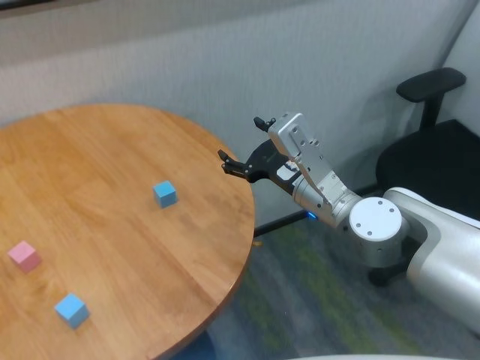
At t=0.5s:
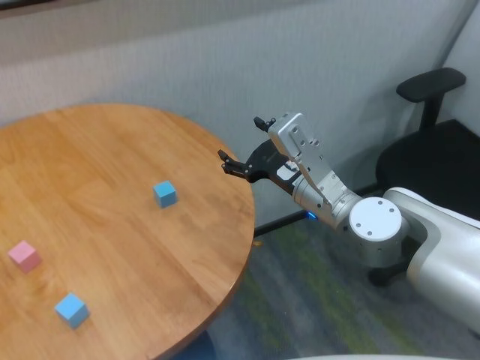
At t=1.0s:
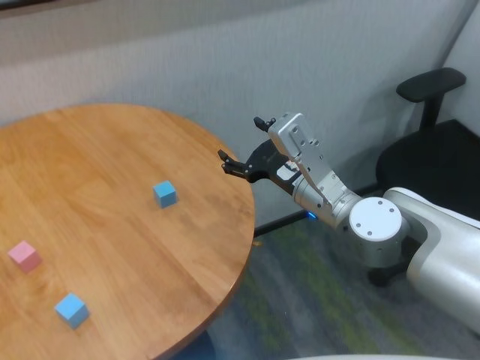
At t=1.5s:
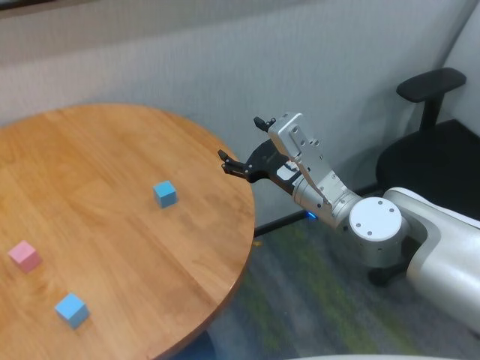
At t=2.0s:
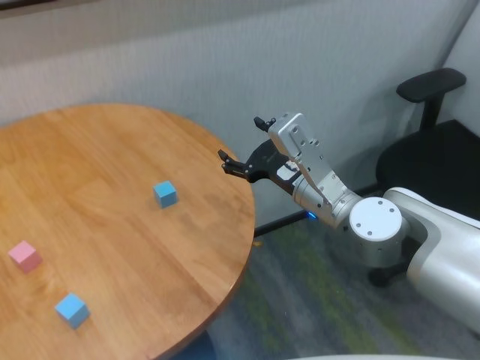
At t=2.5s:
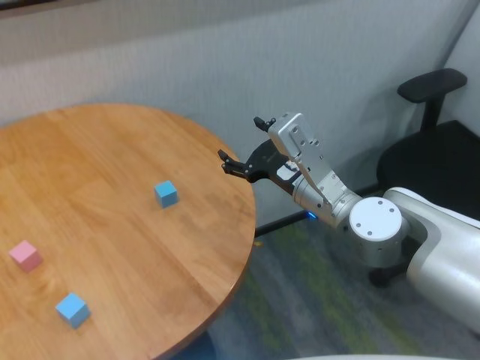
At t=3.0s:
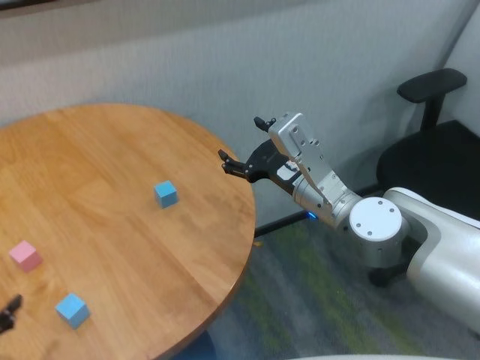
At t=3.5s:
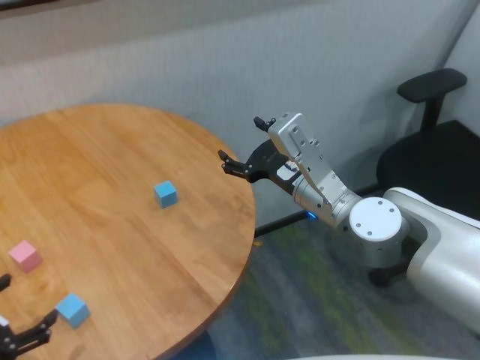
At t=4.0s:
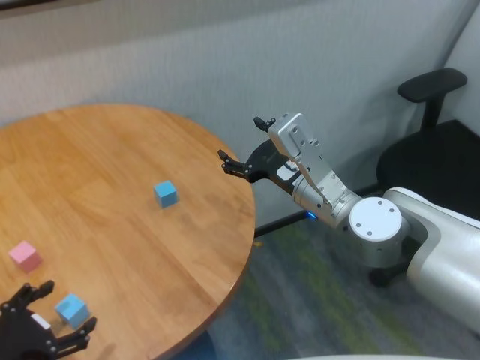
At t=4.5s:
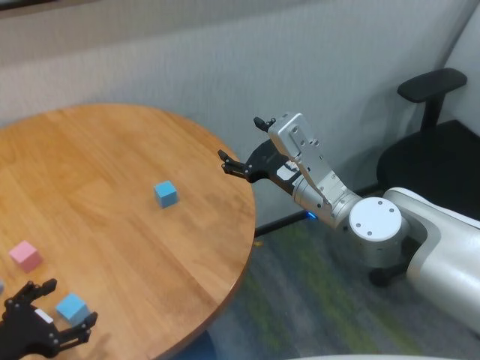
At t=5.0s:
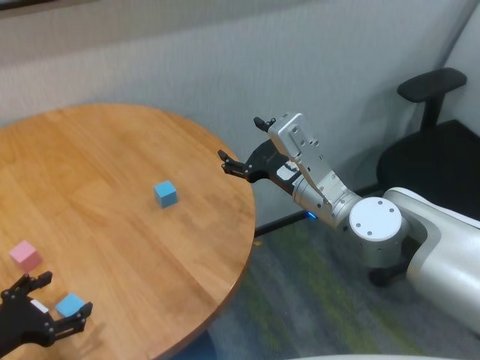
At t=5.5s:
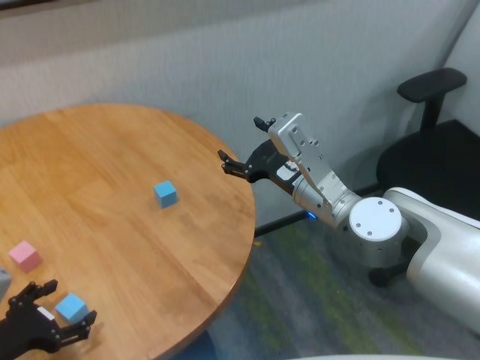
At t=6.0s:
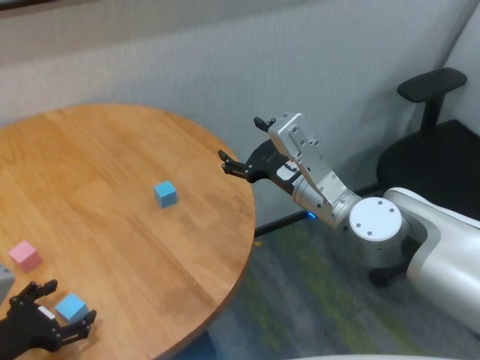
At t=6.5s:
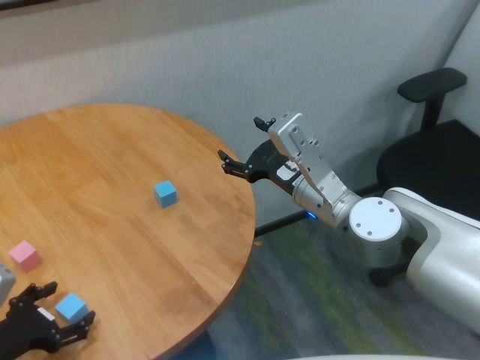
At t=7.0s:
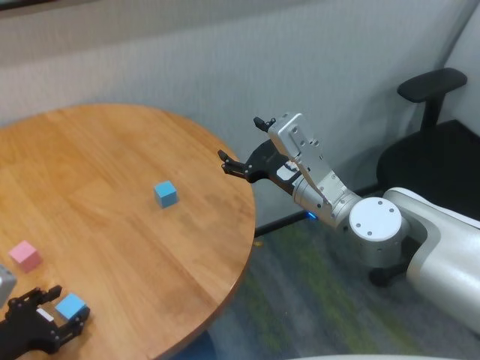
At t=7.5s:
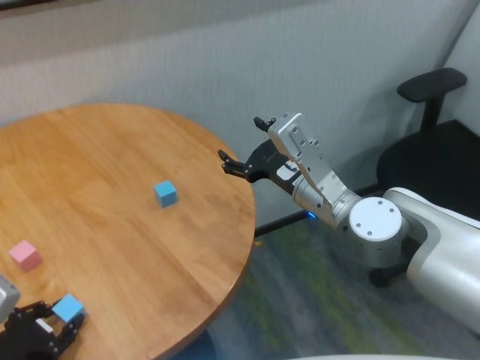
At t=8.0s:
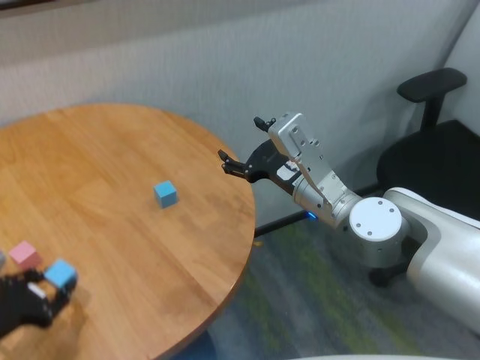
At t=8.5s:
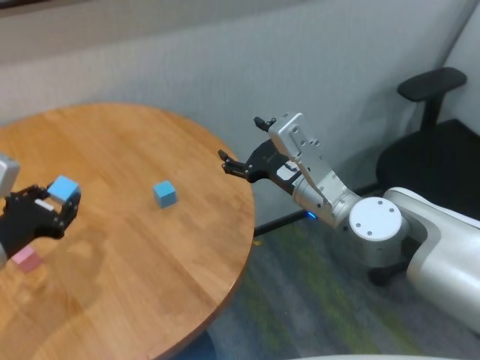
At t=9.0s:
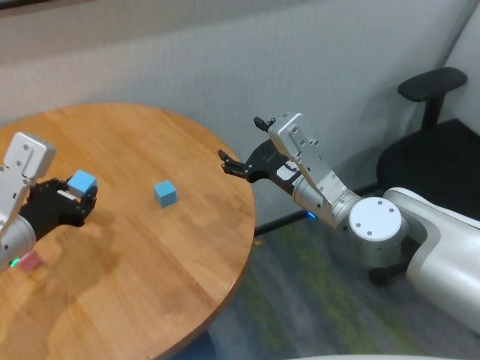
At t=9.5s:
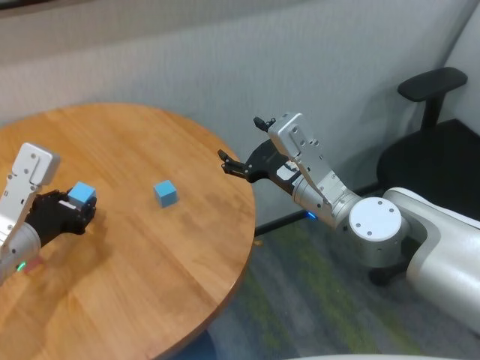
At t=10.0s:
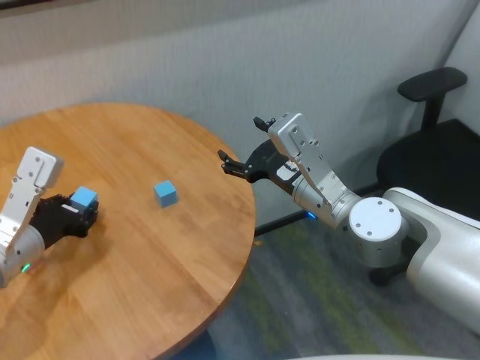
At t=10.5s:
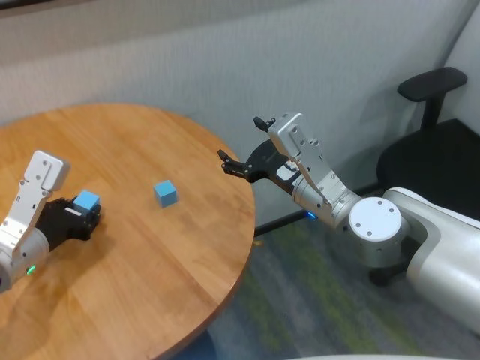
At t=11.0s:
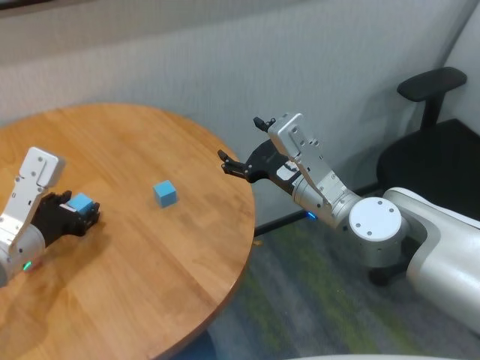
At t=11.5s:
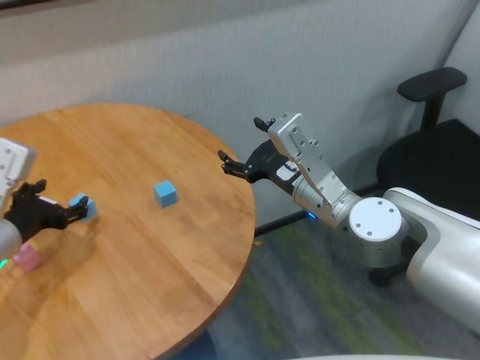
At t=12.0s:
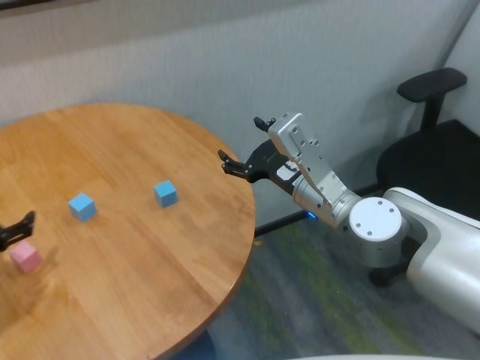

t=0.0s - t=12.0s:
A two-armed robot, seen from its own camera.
Task of the whole recording: stack building blocks on the table.
Step, t=0.0s - t=11.0s: Place the blue building block in the center of table with left gripper.

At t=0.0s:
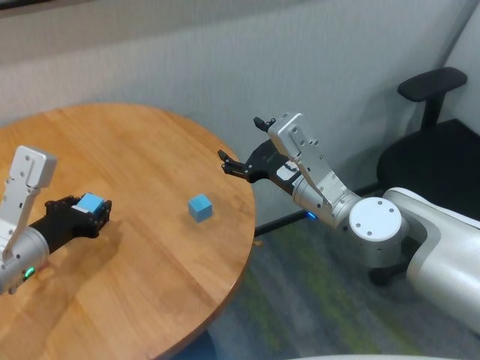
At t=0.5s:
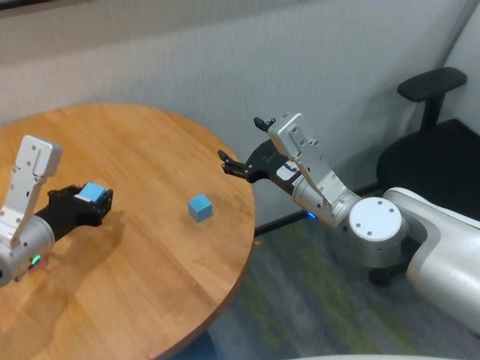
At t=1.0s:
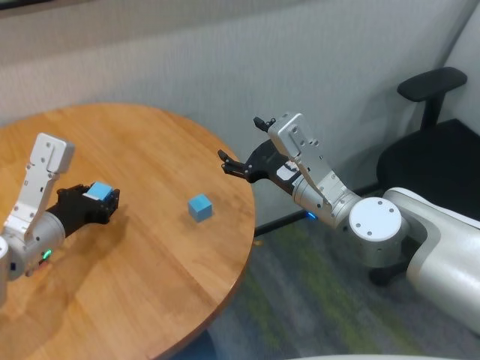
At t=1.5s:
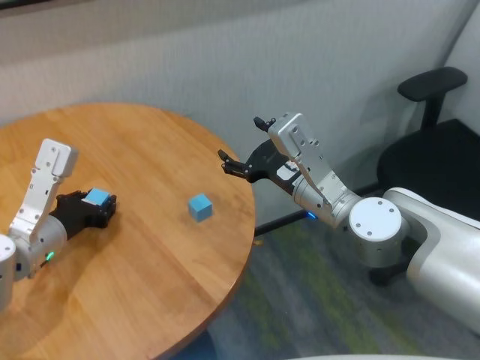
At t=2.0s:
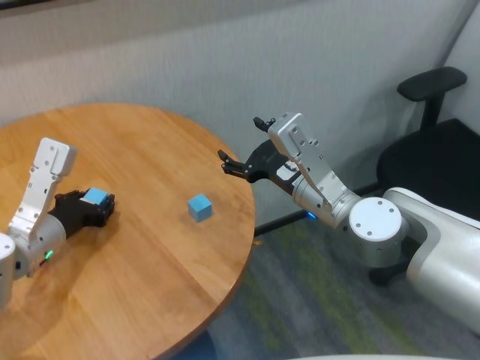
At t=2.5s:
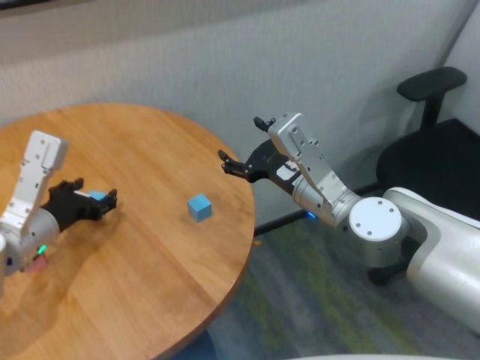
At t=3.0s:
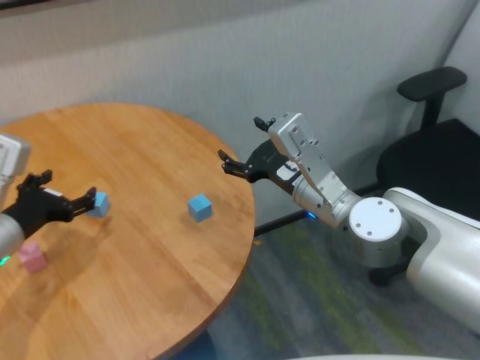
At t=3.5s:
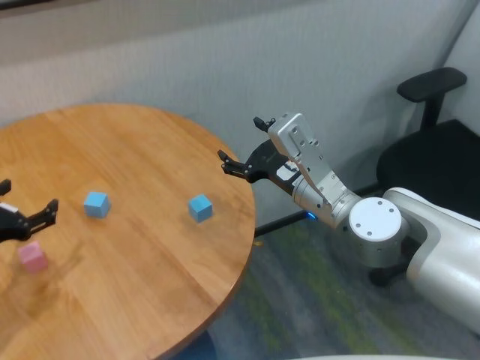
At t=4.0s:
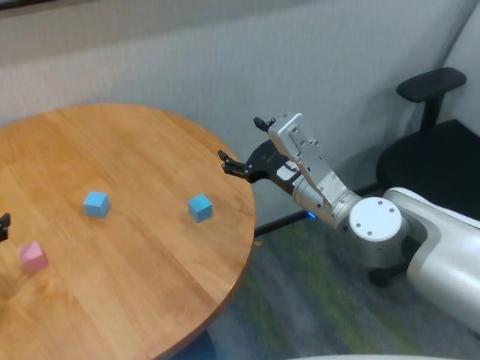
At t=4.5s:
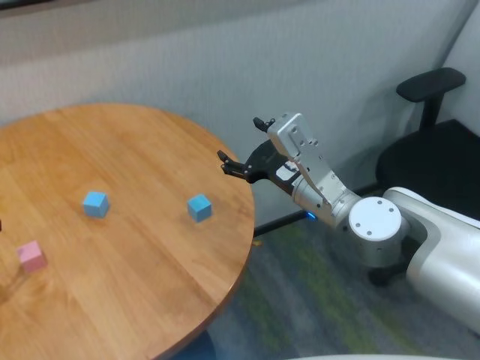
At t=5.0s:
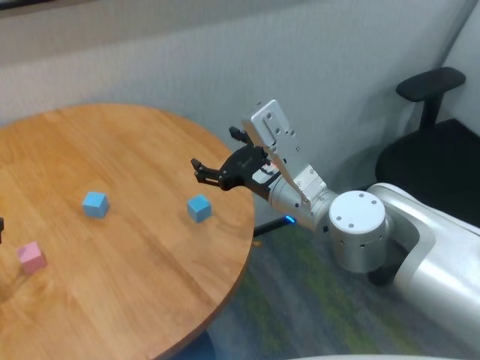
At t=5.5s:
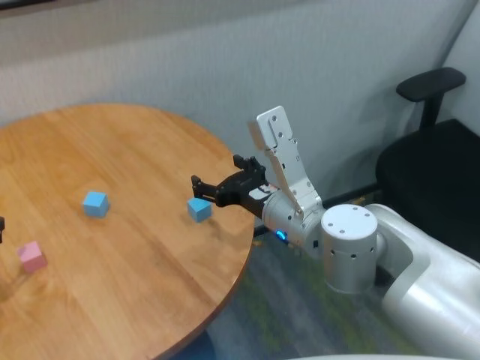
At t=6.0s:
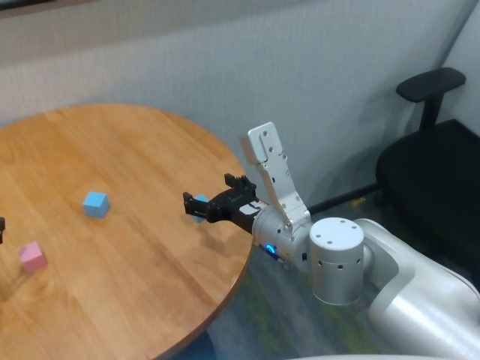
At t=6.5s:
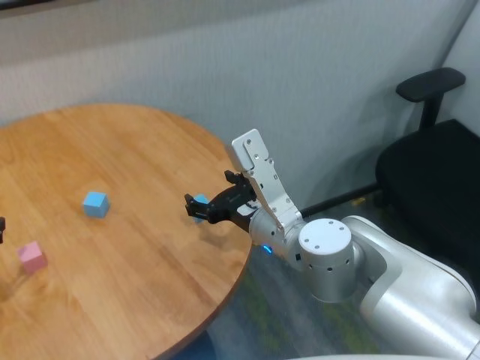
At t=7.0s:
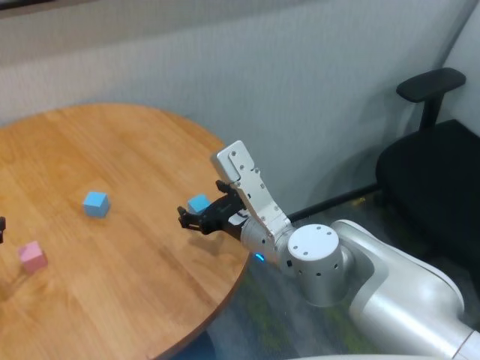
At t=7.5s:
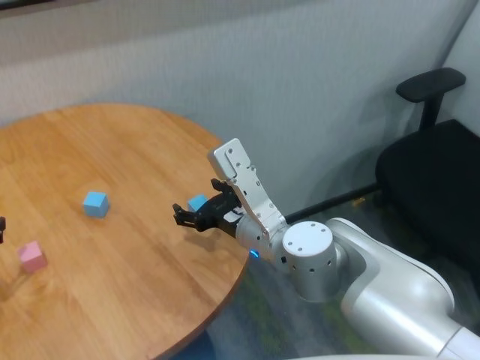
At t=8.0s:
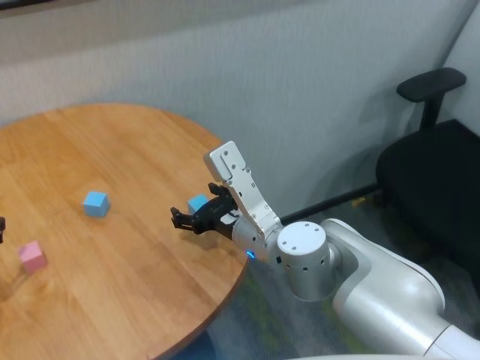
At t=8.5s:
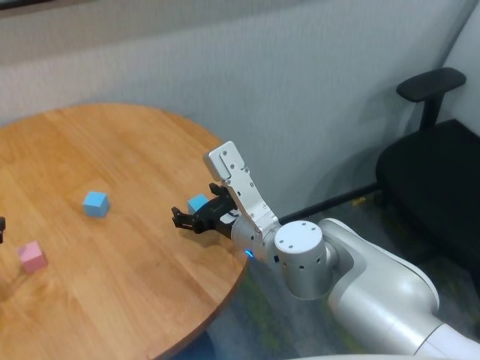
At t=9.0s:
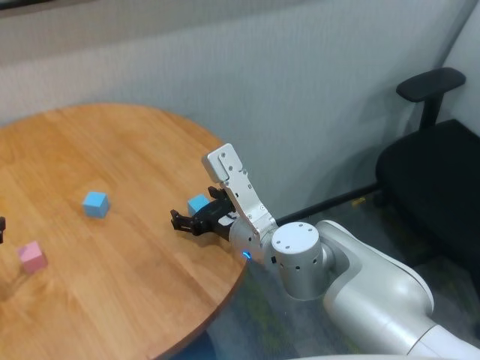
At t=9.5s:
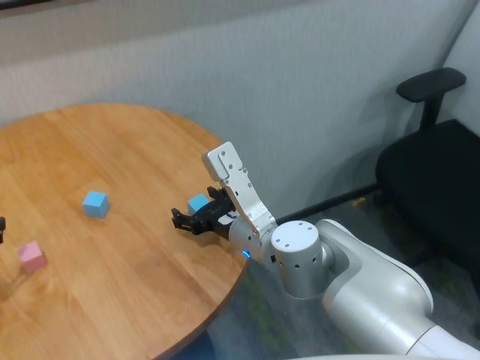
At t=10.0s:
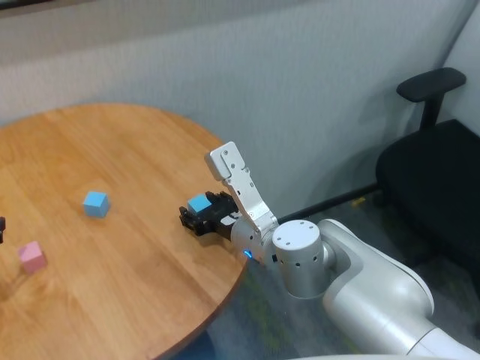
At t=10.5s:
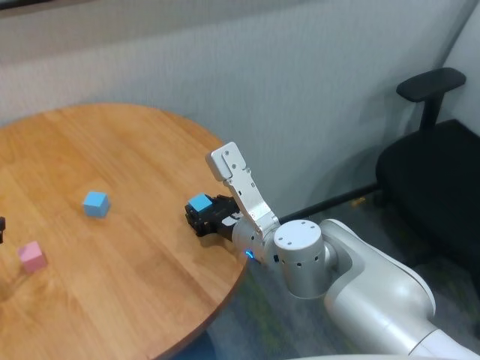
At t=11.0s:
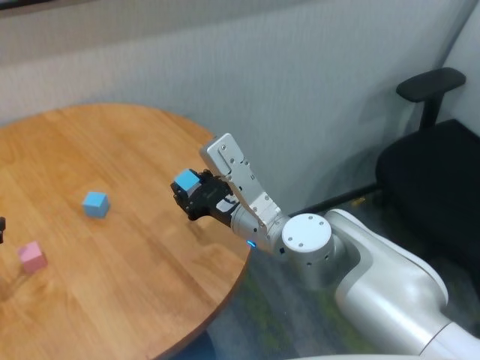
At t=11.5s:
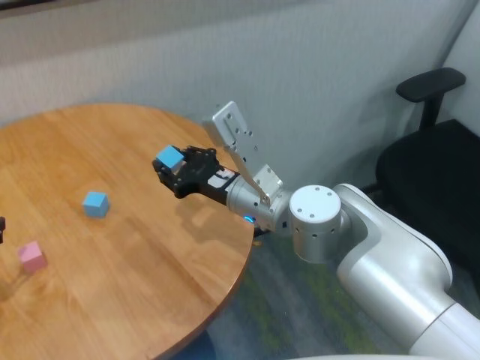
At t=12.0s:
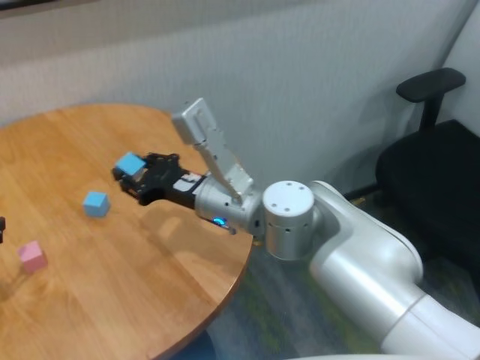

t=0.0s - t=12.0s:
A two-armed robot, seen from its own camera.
Task of the whole recording: stack building blocks on the table.
Step, t=0.0s - t=2.0s: Place the blue building block in the center of table with left gripper.

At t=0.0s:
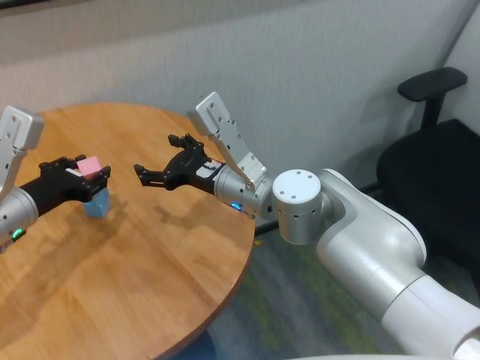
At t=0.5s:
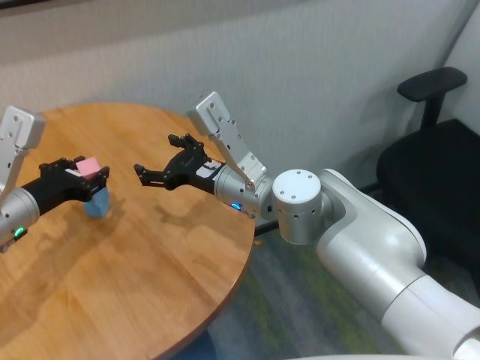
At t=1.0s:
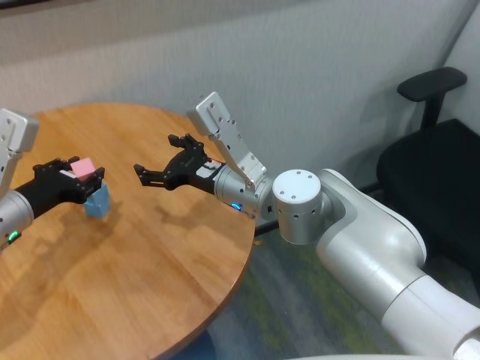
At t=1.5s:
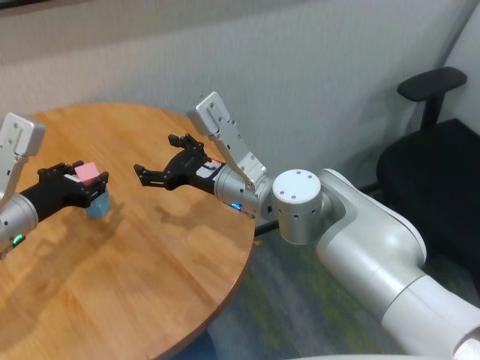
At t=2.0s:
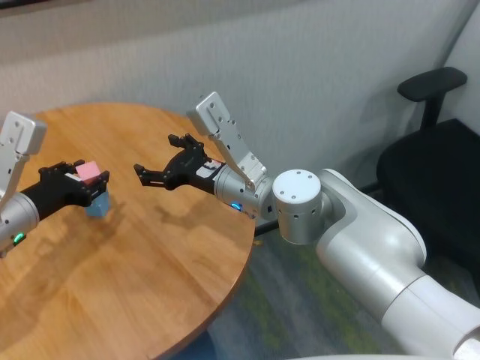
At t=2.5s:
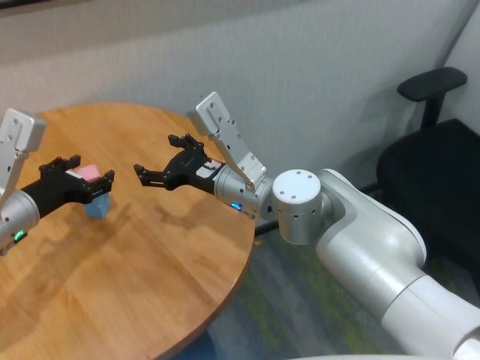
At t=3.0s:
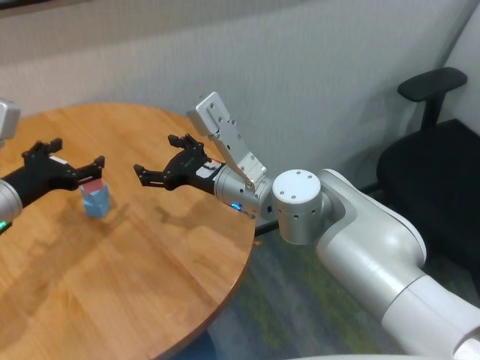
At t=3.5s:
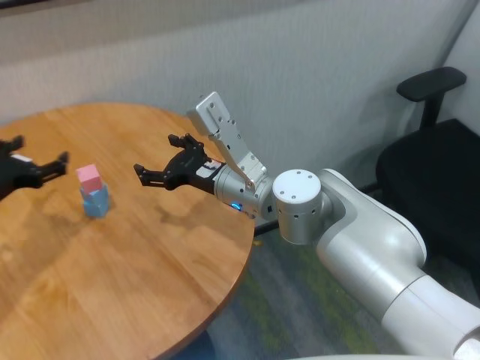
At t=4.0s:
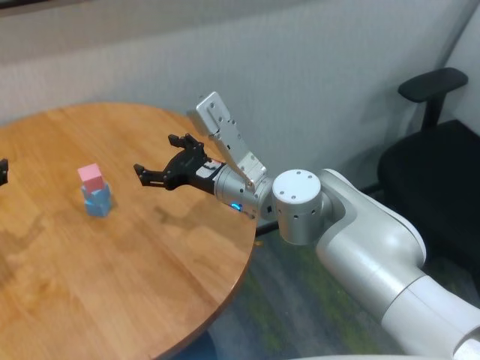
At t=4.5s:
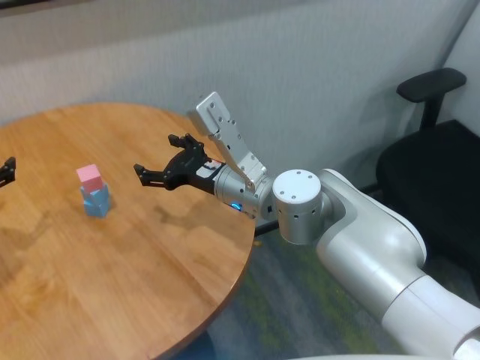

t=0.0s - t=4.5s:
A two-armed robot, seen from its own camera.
Task of the whole recording: stack building blocks on the table.
Step, t=0.0s - t=2.5s: Place the pink building block on the blue building blocks with left gripper.
